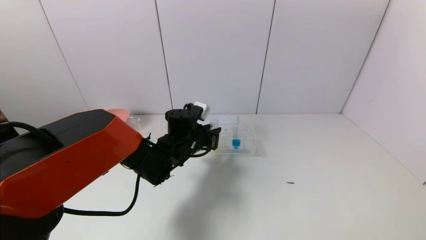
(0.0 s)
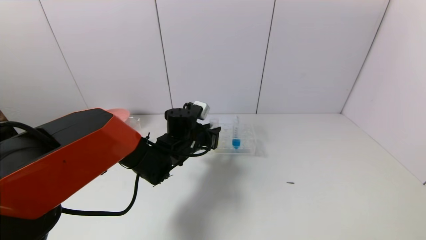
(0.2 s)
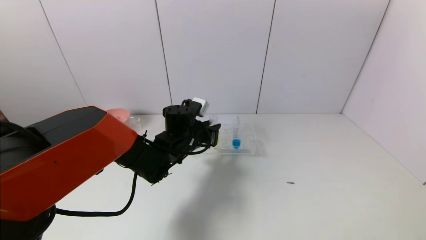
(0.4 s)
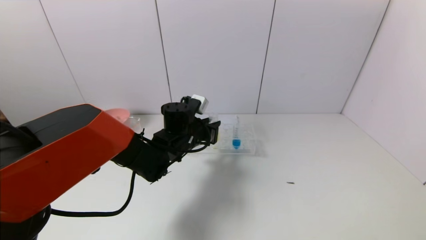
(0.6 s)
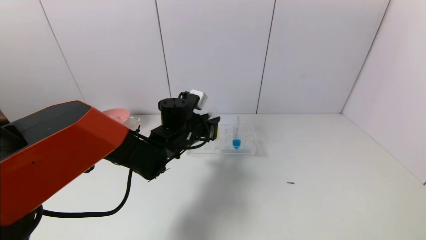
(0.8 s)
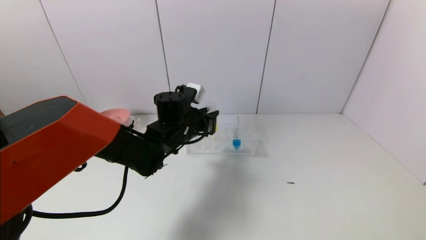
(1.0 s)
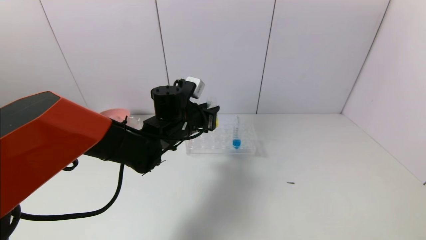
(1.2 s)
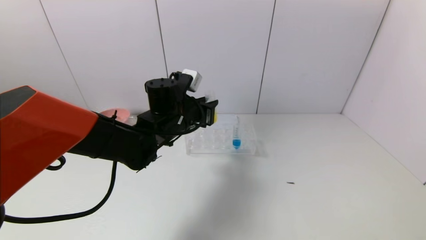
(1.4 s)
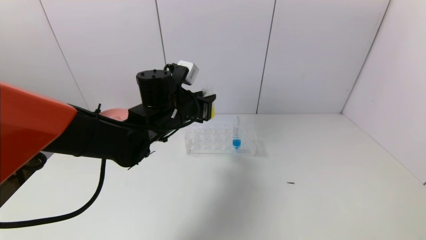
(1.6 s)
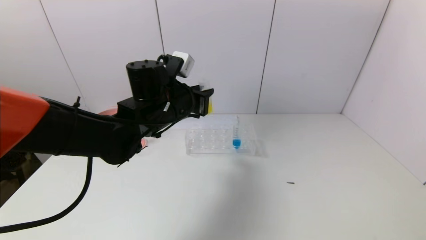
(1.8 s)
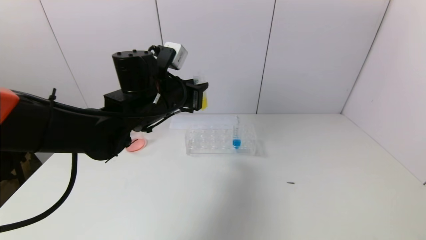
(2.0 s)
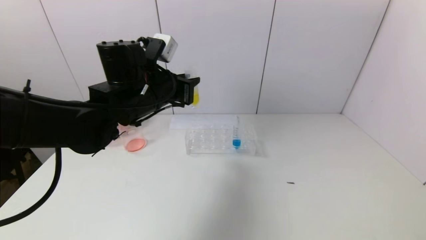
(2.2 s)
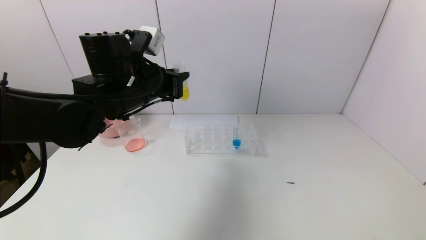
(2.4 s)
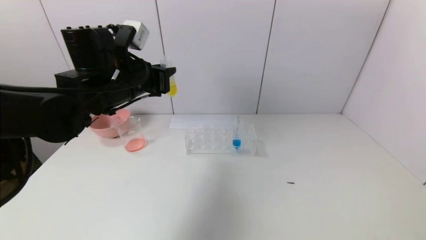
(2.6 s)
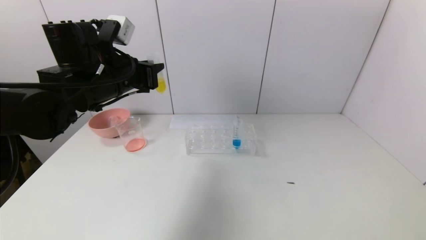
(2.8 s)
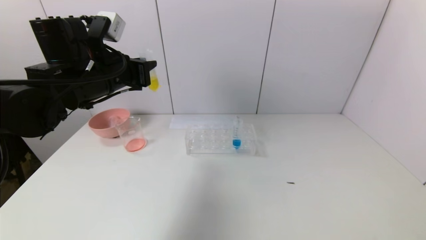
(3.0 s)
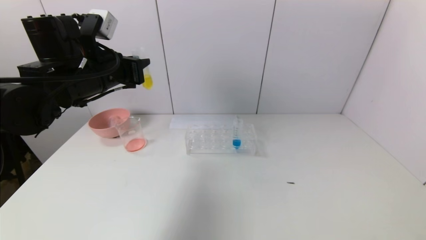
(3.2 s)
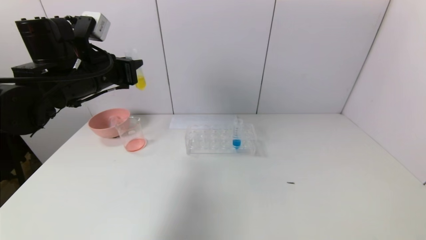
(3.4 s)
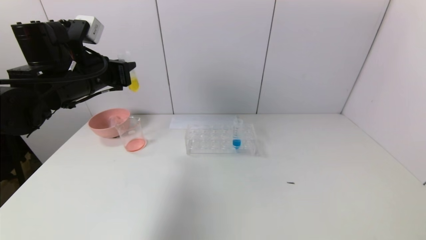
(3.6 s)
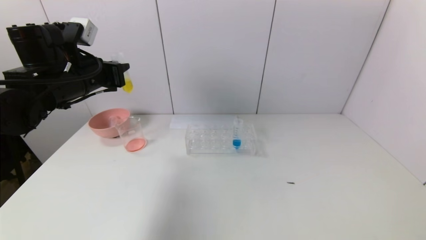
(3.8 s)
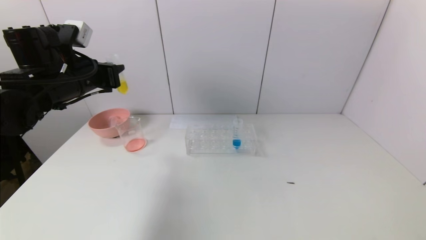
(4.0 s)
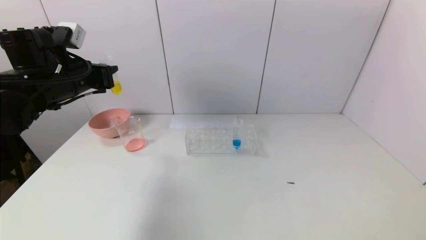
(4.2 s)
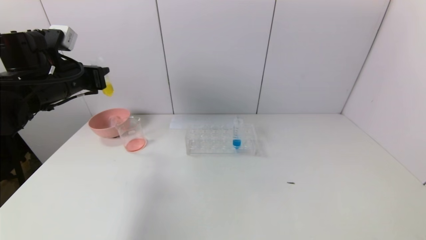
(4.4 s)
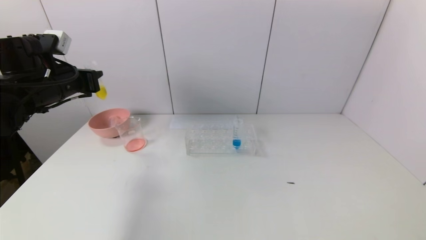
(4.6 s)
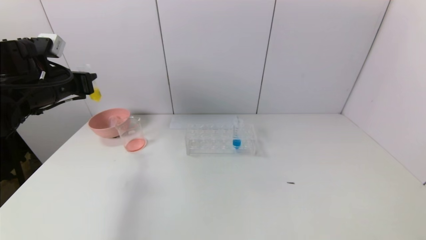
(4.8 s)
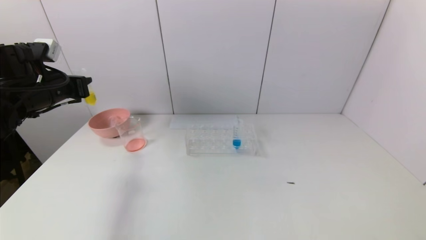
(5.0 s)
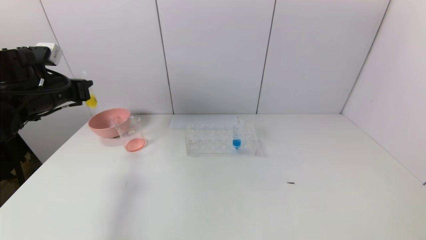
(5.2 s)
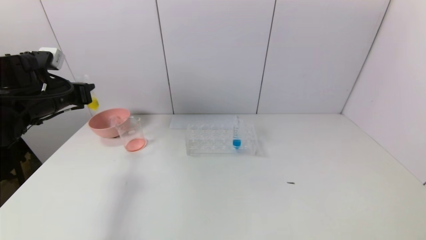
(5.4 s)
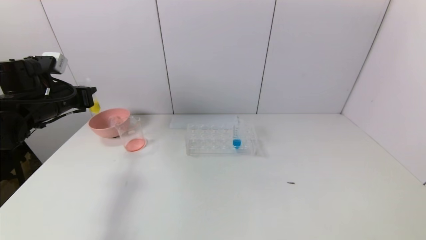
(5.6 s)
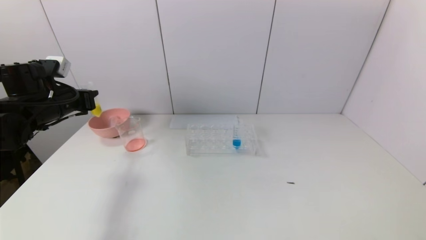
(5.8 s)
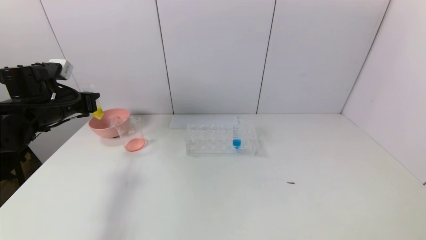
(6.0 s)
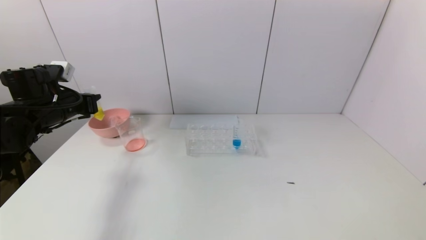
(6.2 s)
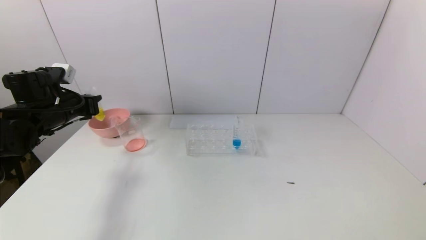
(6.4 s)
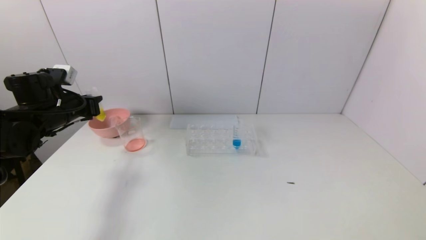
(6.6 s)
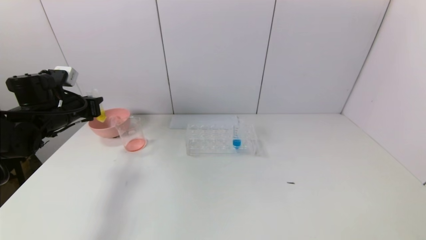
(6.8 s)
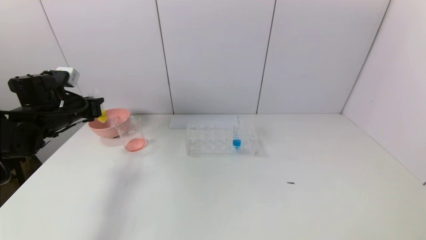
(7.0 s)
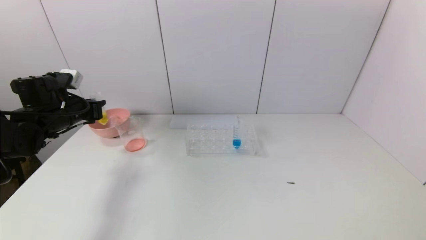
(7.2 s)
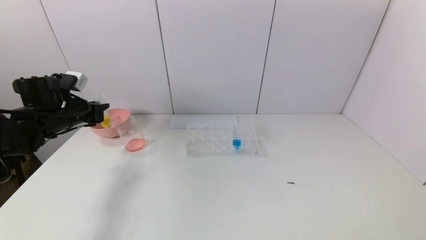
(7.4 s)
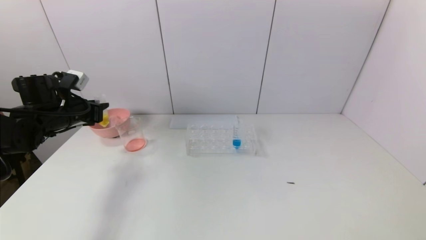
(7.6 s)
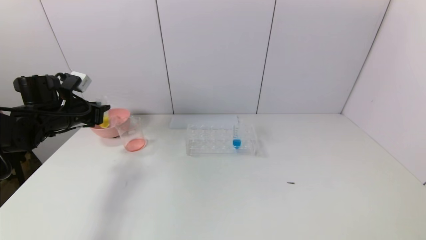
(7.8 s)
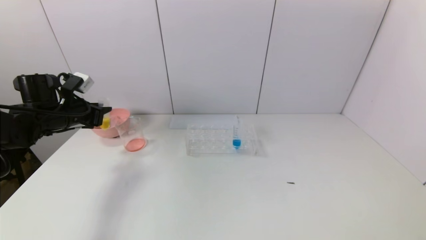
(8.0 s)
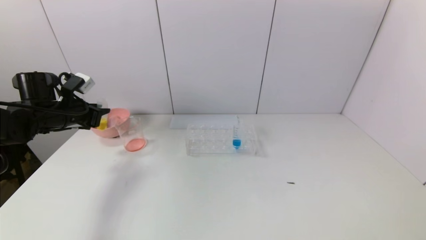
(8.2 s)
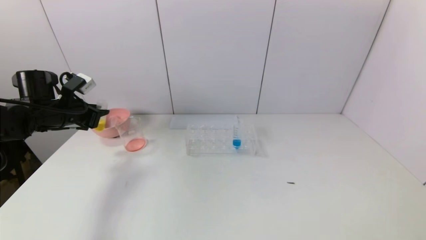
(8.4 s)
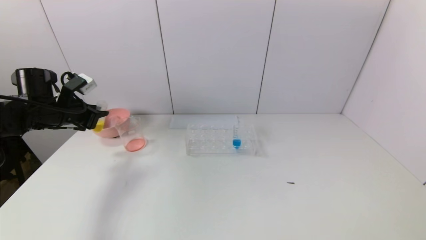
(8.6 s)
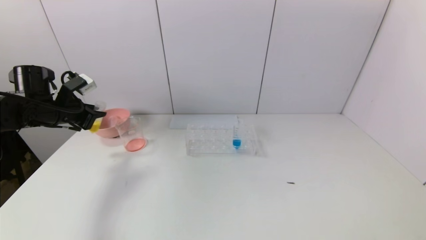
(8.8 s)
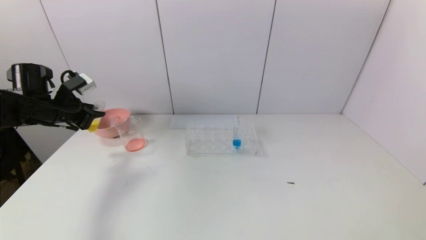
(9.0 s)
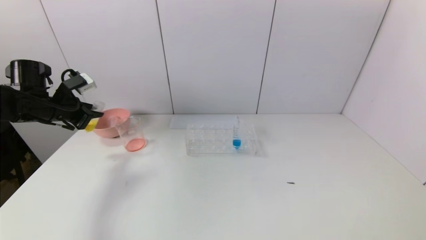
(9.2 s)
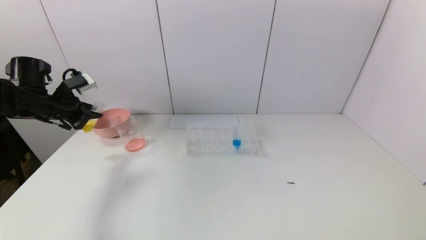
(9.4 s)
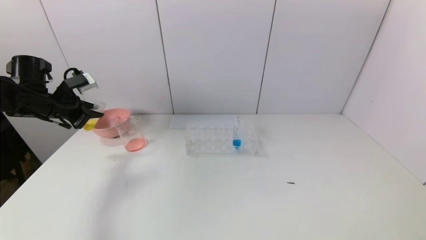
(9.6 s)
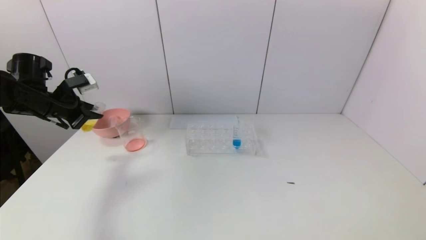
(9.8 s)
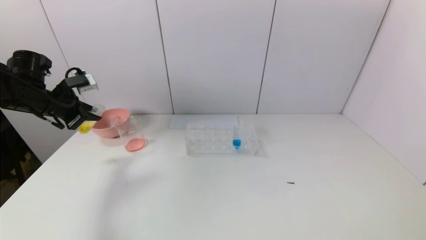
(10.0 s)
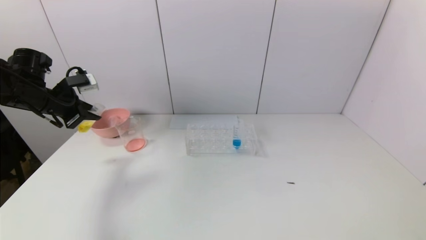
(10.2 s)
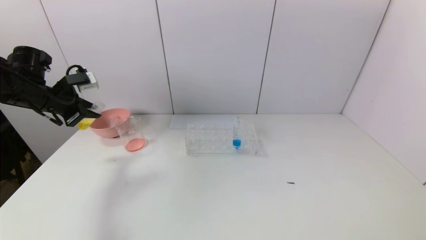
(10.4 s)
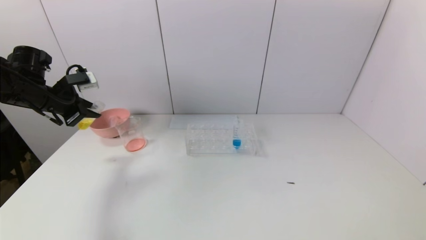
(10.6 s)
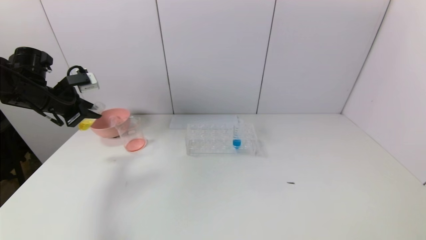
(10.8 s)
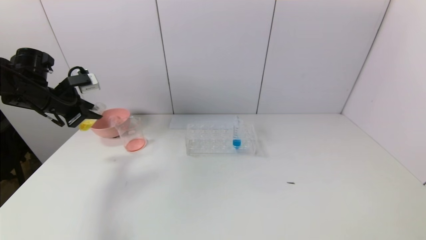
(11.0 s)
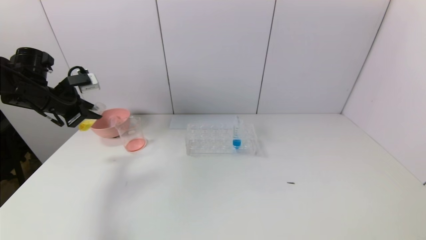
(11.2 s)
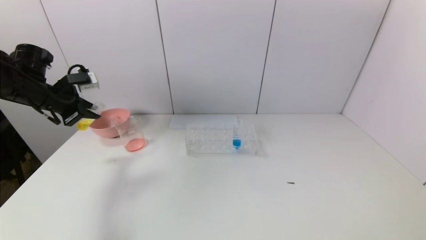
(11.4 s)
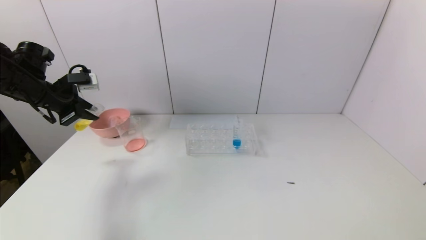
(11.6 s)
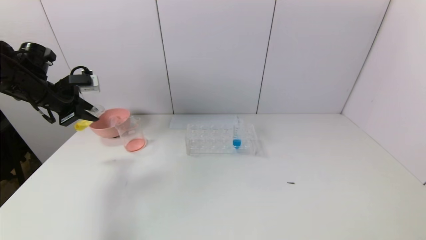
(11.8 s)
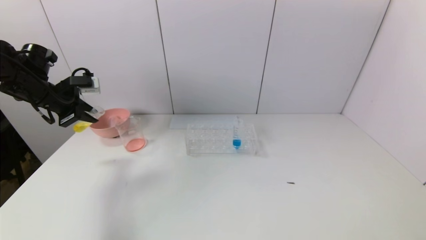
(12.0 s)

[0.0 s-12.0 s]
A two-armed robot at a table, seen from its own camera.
Task of the whole recording: pick up the test tube with yellow pigment and the test tube with red pigment by grippers and pour them into the beaker.
0.0 to 1.6 s: The left gripper is displaced upward by some 10 cm.
1.6 to 3.0 s: The left gripper is displaced to the left and upward by about 15 cm.
3.0 to 4.4 s: The left gripper heads to the left, covering approximately 10 cm.
4.4 to 6.0 s: The left gripper goes roughly 5 cm downward.
6.0 to 7.6 s: The grippers stay close to where they were, moving slightly.
10.4 to 12.0 s: The grippers stay close to where they were, moving slightly.

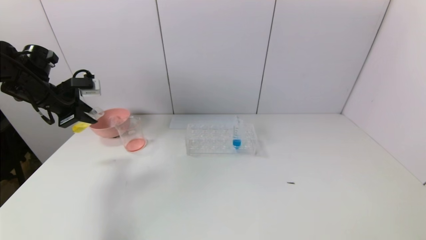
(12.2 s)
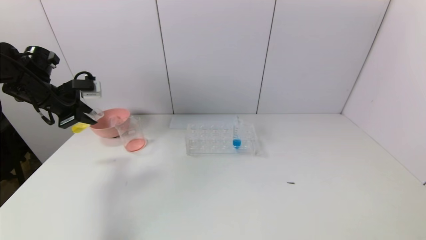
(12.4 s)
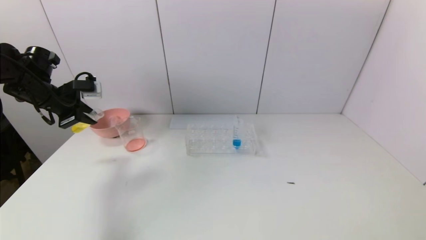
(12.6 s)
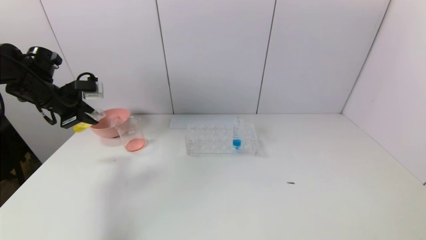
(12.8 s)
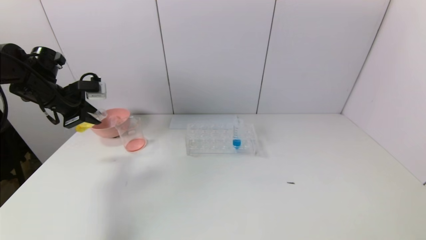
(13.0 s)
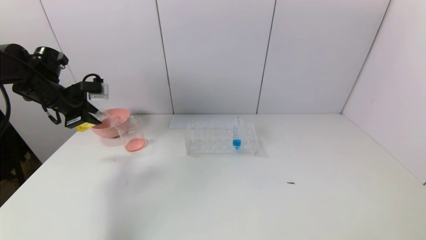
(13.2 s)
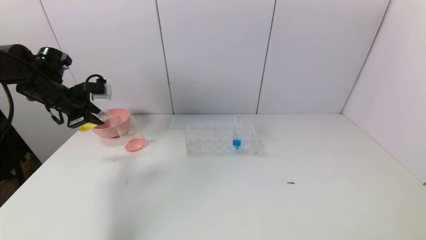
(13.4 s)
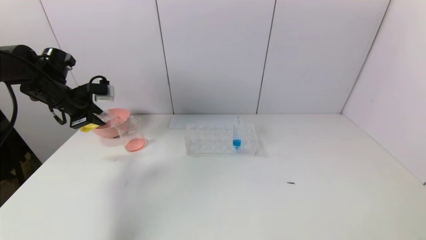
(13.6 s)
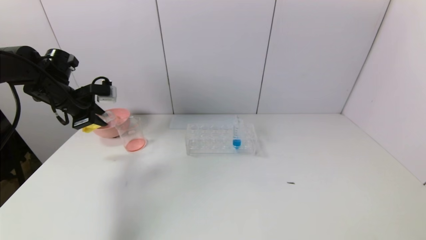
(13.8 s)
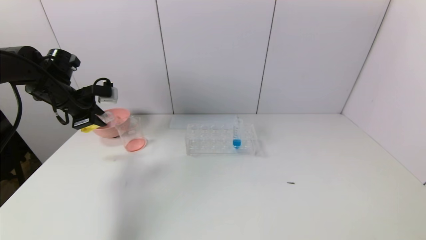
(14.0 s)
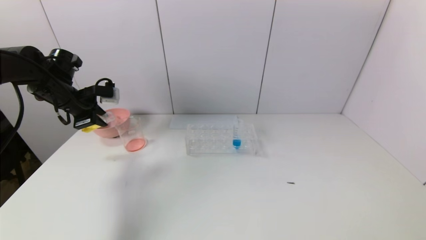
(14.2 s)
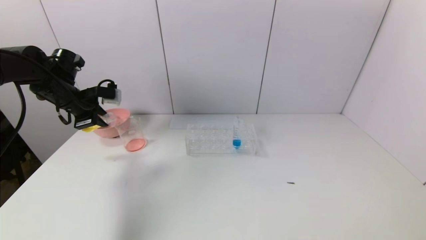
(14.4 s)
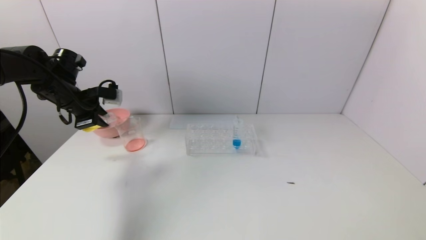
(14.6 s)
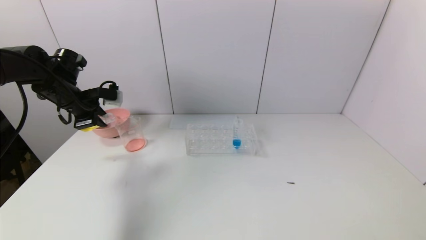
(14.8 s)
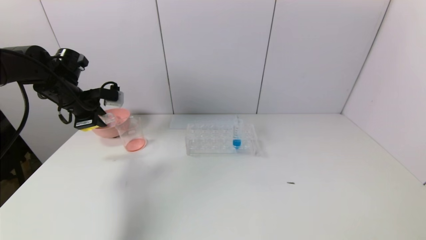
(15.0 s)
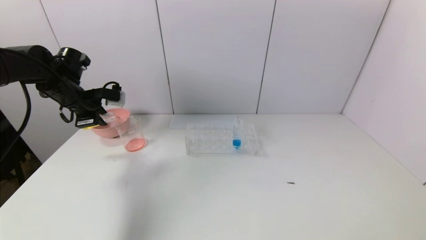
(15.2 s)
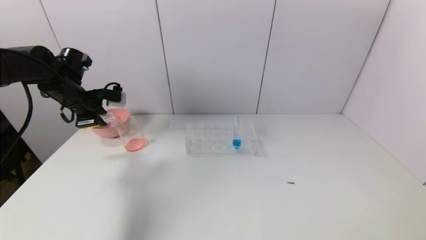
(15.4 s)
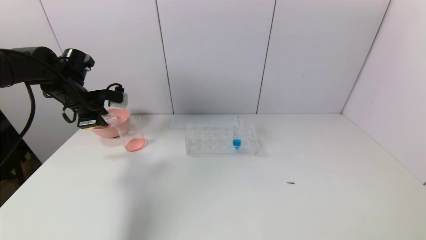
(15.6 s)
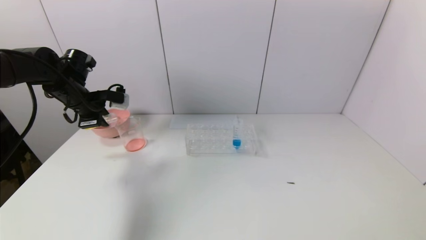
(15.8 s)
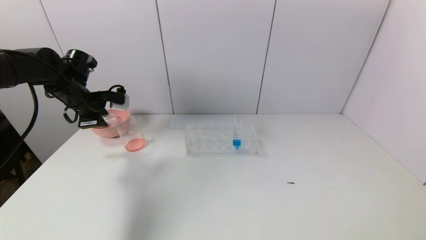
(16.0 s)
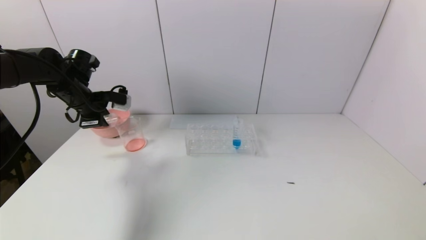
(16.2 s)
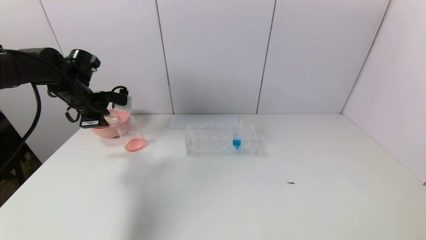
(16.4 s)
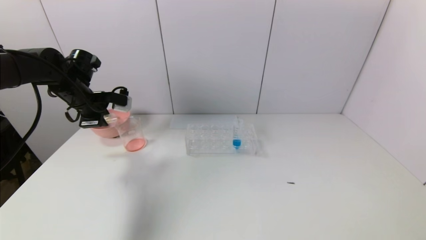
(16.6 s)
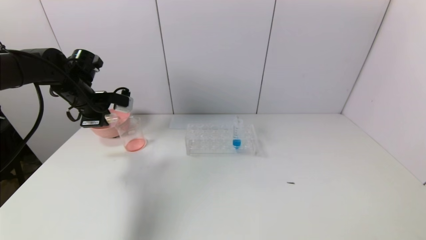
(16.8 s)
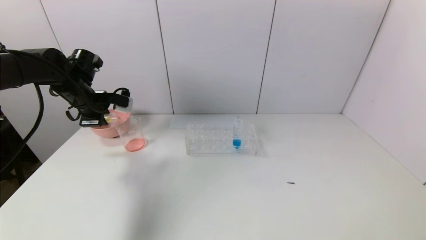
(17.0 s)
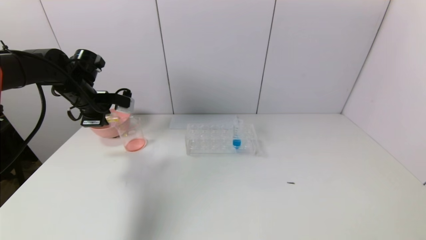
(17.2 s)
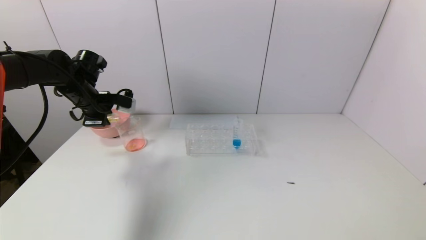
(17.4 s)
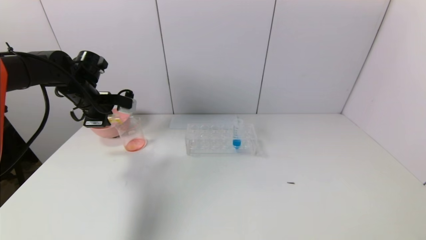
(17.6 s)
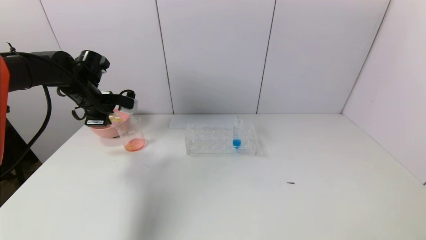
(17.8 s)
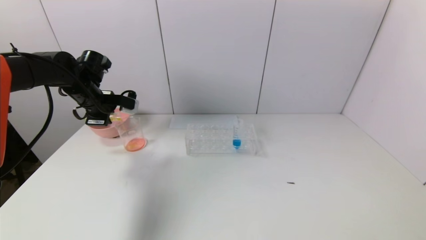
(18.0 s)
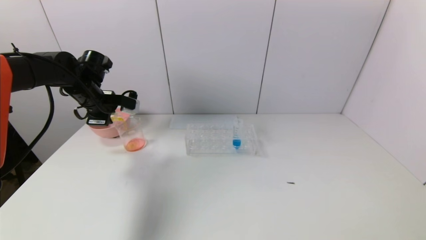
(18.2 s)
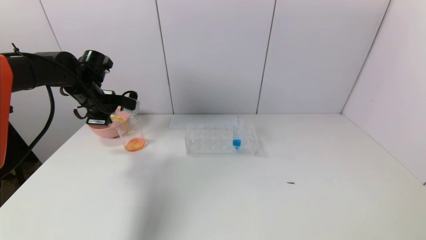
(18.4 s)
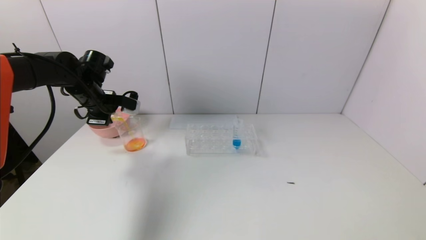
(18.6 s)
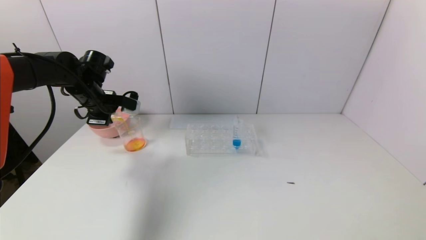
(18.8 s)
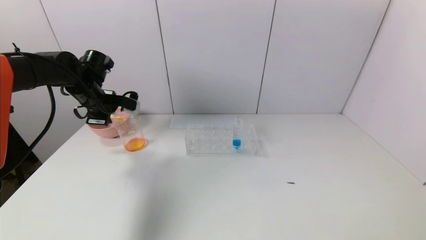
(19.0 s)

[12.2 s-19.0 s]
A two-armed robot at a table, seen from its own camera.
Task of the whole recording: pick up the test tube with yellow pigment and the test tube with red pigment by grippers and pour them into the beaker.
12.2 to 15.0 s: The grippers move only a little.
15.0 to 19.0 s: There are only small adjustments of the grippers.
